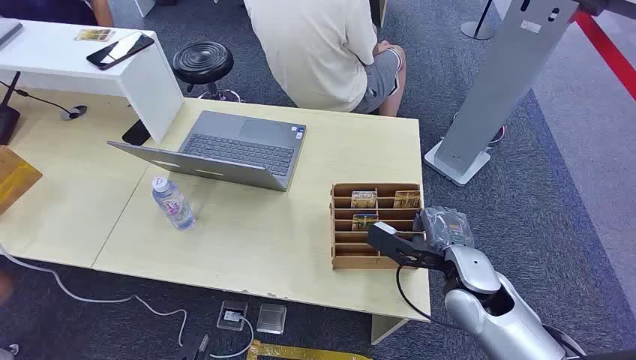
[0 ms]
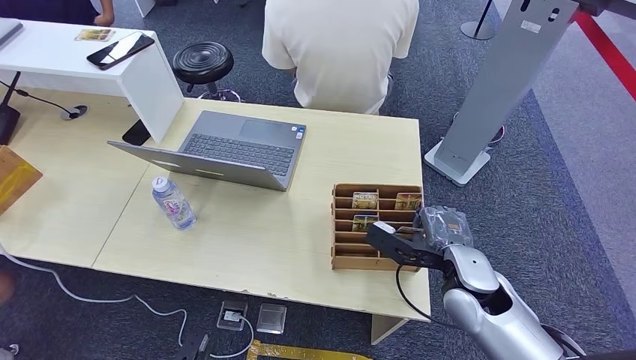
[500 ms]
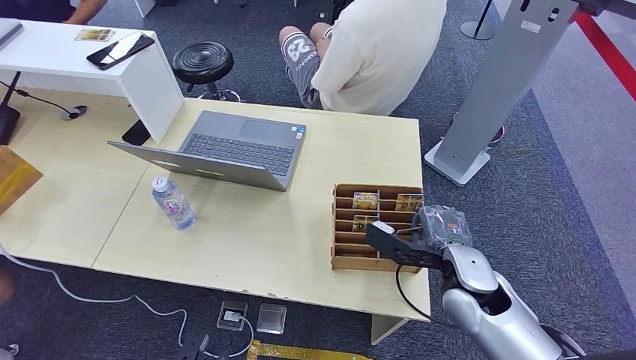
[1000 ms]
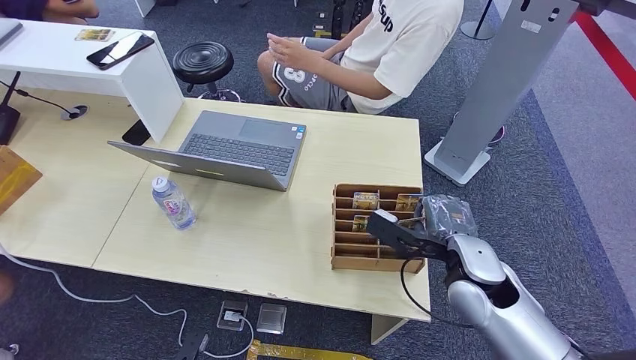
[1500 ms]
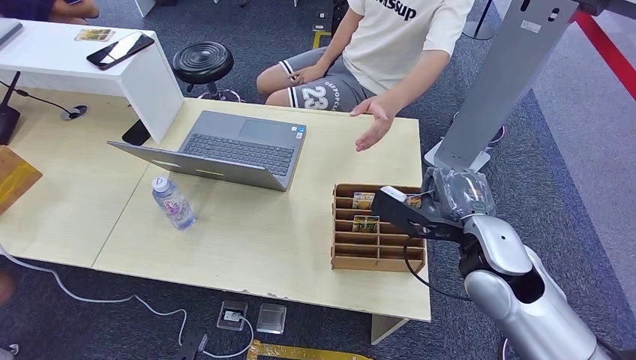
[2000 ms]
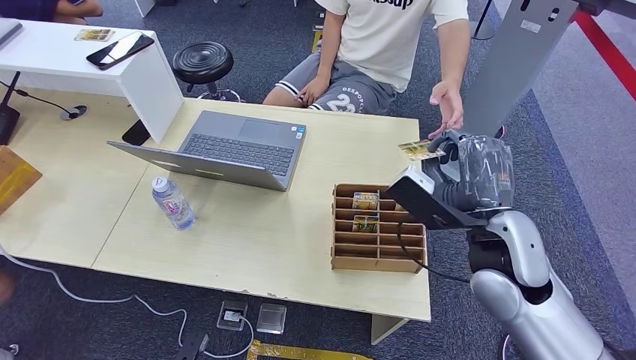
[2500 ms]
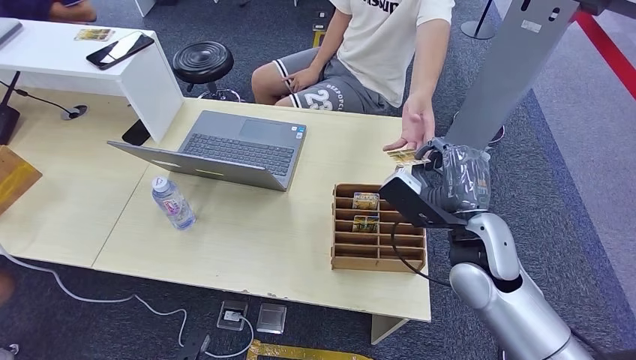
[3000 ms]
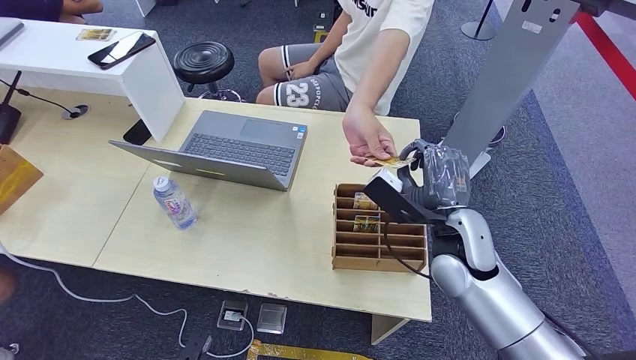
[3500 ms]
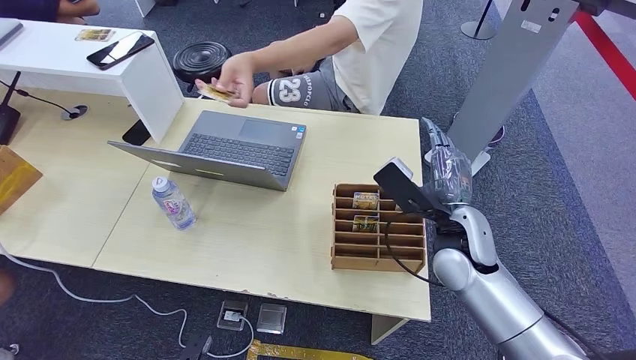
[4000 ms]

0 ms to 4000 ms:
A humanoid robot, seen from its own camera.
Step, 0 ms to 2000 ms: Pick up the room card from the card holder.
Step, 2500 ms to 4000 ms: Hand the room card to the target.
2000 ms to 4000 ms: The right hand changes place by some 5 cm.
